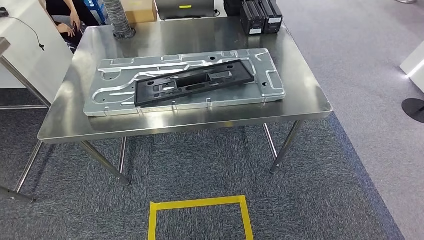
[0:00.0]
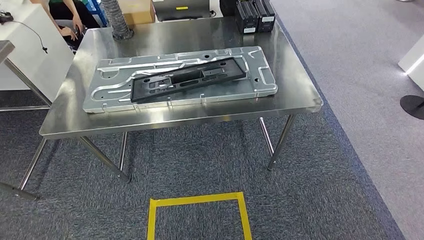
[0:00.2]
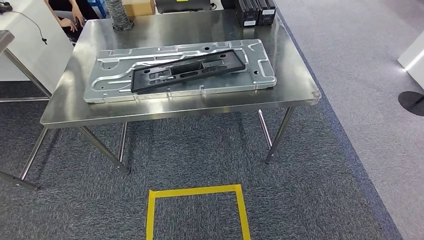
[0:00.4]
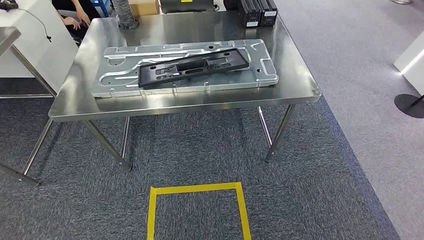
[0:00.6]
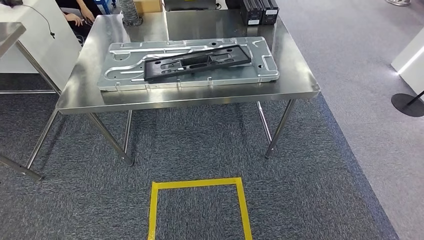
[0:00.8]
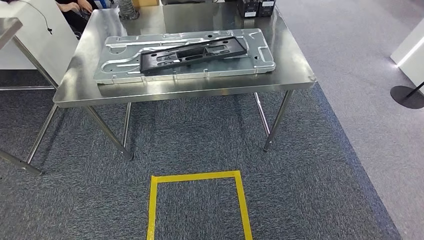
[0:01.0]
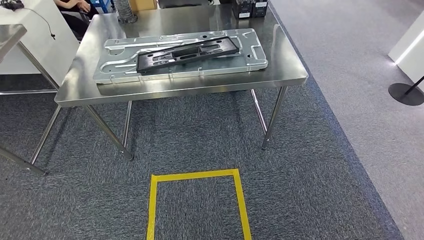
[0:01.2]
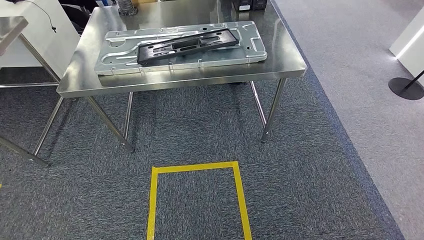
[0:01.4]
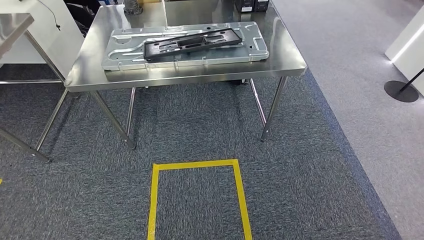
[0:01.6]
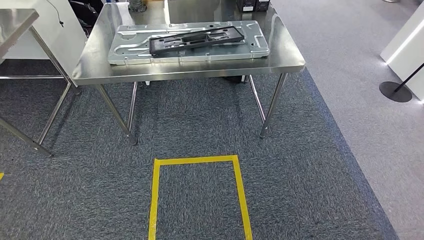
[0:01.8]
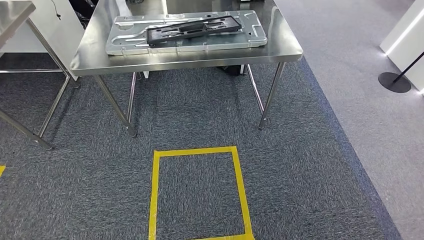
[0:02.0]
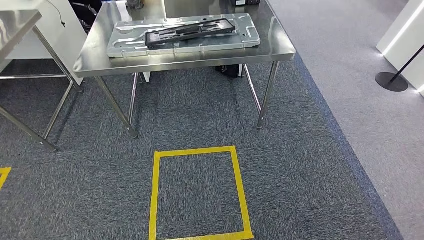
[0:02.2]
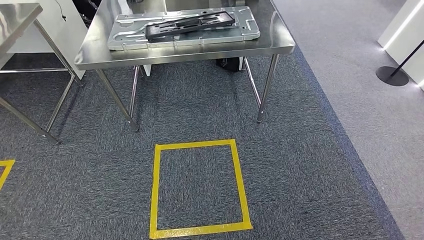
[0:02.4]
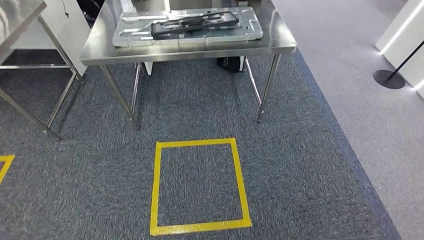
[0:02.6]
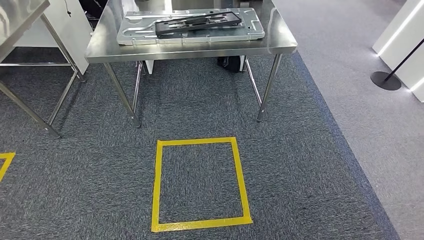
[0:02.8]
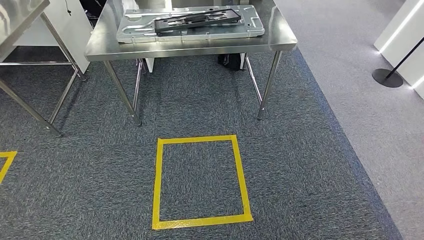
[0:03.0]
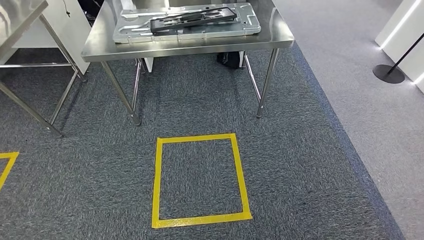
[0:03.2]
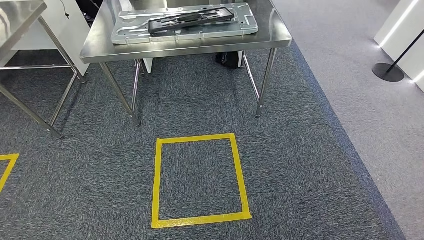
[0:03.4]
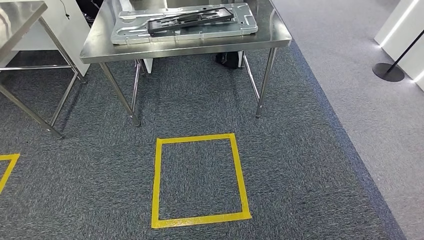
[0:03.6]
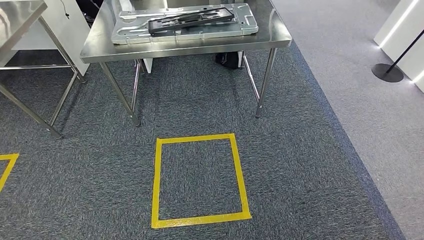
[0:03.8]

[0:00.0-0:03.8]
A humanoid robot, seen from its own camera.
Step, 0:00.0 to 0:03.8: Move to the initial position of the shelf.
0:02.6 to 0:03.8: Both hands stay about where they are.
